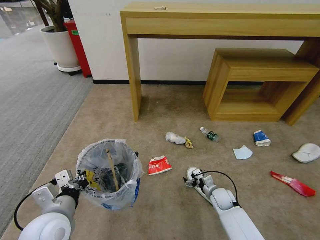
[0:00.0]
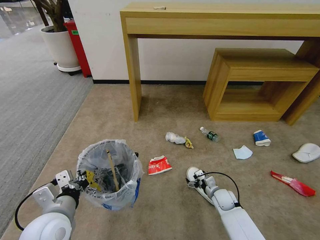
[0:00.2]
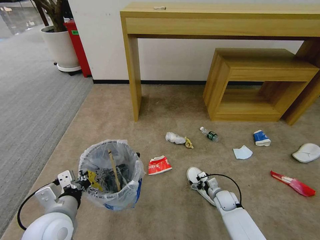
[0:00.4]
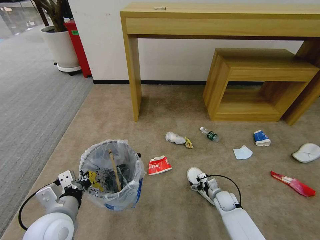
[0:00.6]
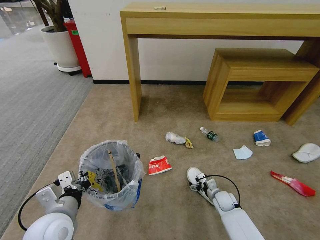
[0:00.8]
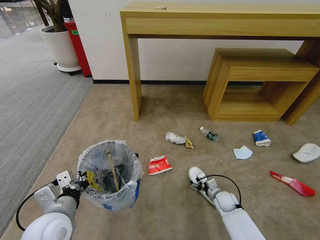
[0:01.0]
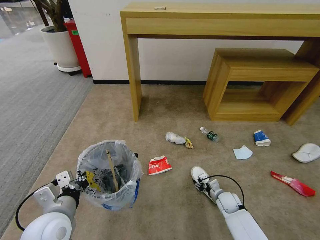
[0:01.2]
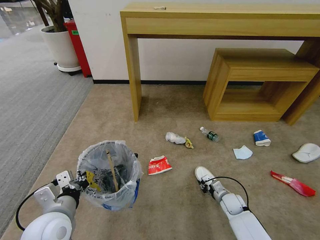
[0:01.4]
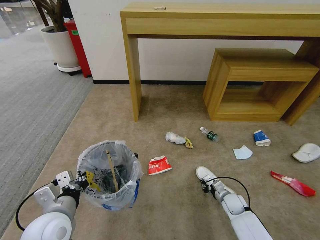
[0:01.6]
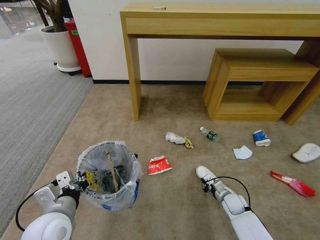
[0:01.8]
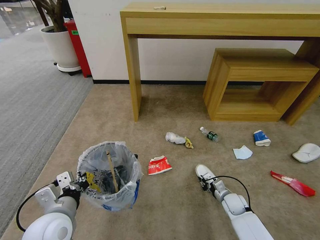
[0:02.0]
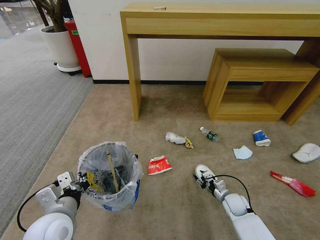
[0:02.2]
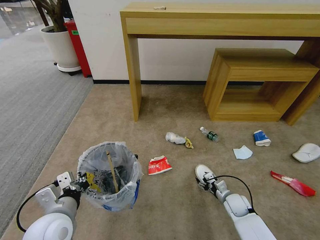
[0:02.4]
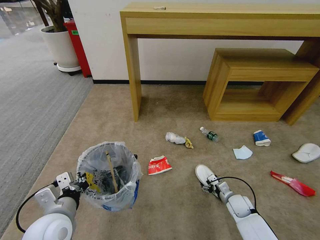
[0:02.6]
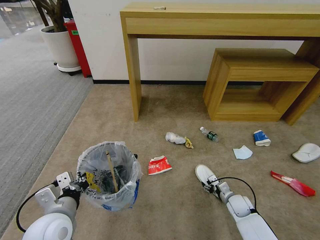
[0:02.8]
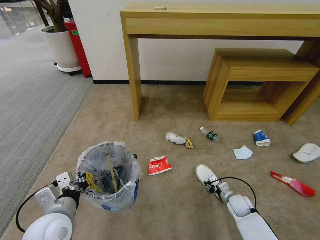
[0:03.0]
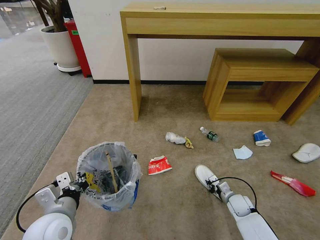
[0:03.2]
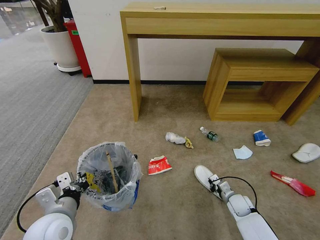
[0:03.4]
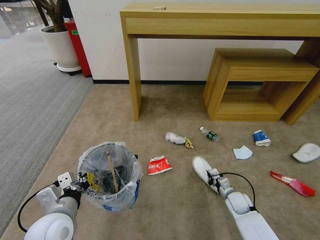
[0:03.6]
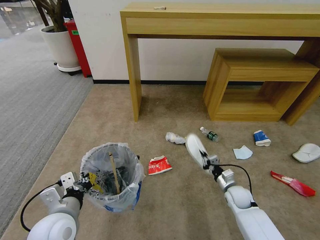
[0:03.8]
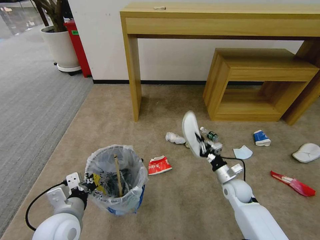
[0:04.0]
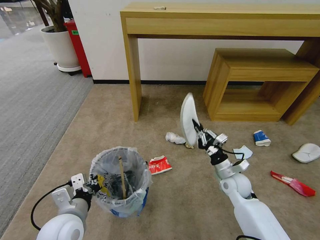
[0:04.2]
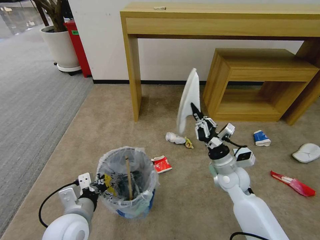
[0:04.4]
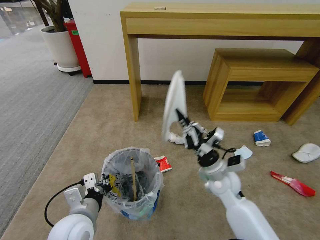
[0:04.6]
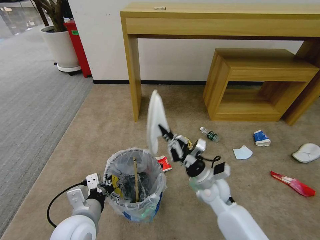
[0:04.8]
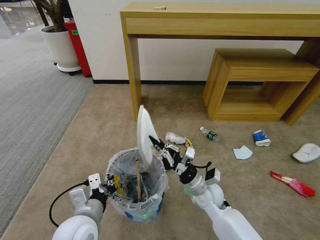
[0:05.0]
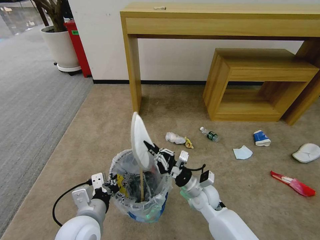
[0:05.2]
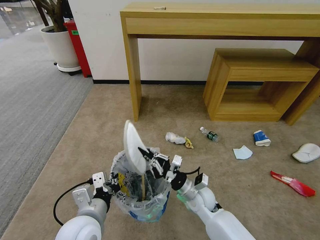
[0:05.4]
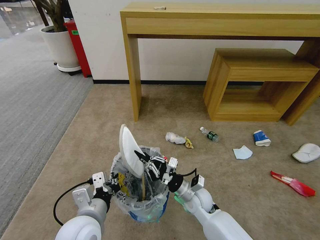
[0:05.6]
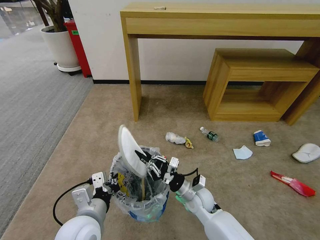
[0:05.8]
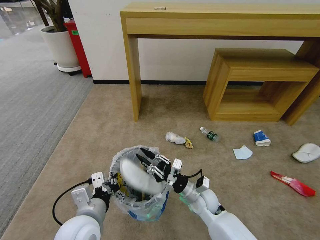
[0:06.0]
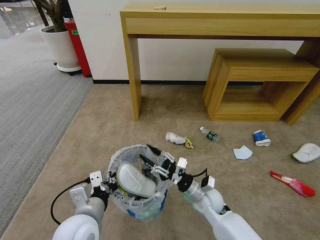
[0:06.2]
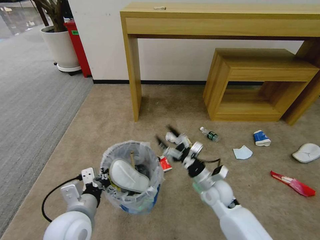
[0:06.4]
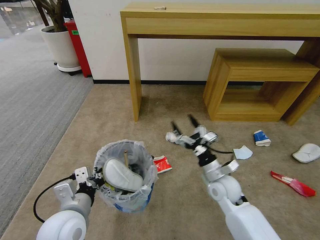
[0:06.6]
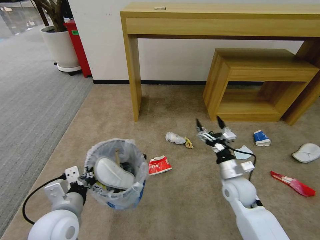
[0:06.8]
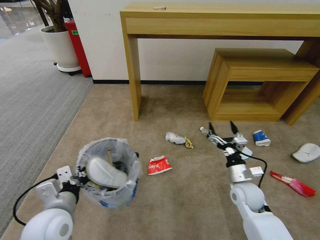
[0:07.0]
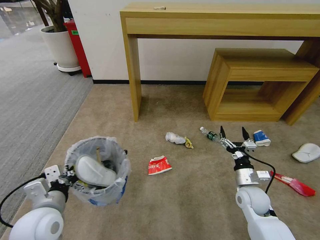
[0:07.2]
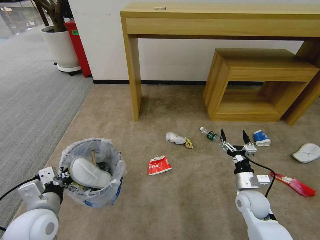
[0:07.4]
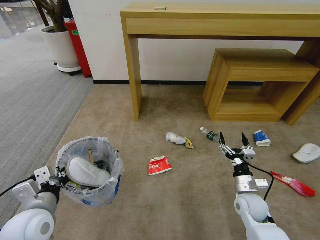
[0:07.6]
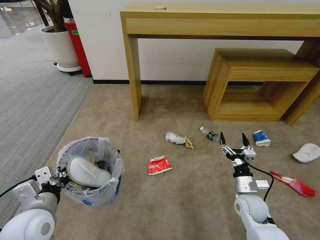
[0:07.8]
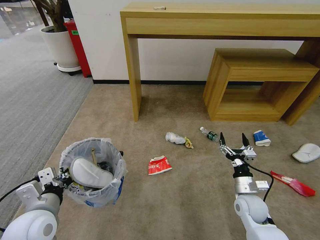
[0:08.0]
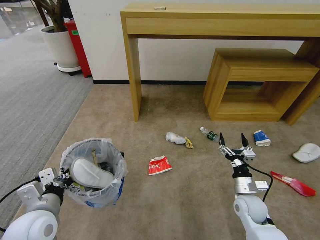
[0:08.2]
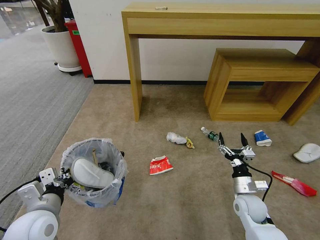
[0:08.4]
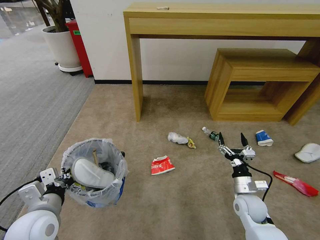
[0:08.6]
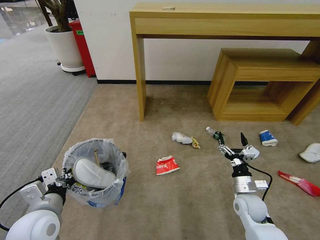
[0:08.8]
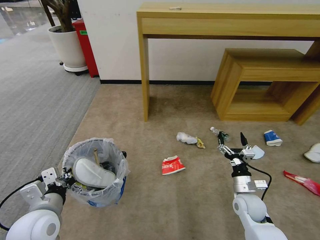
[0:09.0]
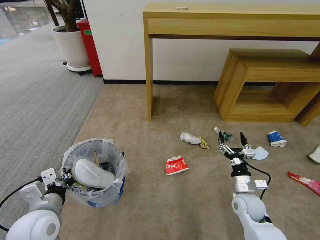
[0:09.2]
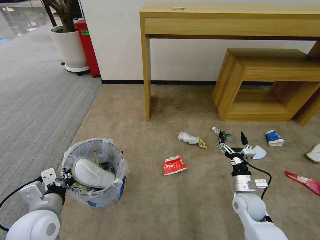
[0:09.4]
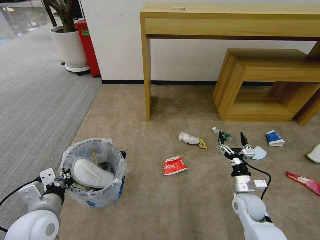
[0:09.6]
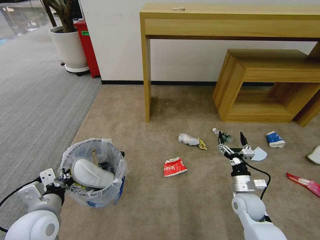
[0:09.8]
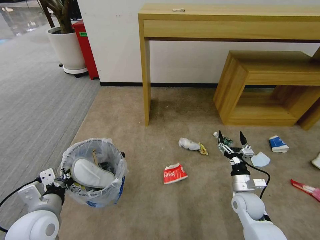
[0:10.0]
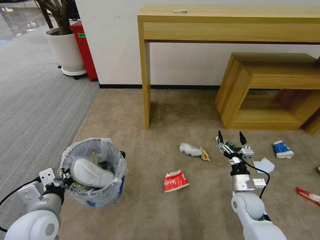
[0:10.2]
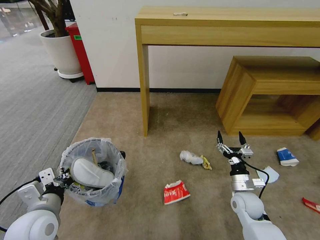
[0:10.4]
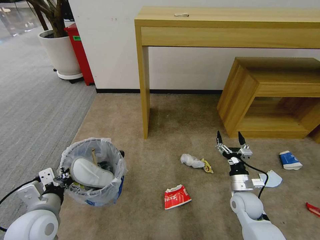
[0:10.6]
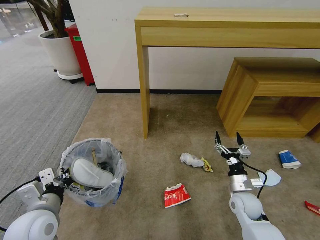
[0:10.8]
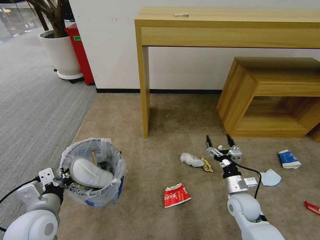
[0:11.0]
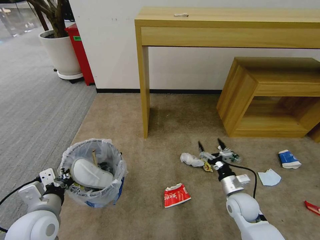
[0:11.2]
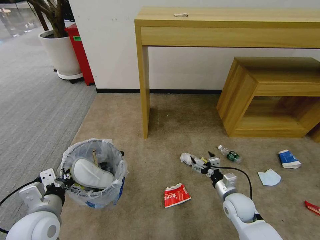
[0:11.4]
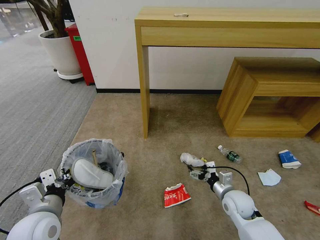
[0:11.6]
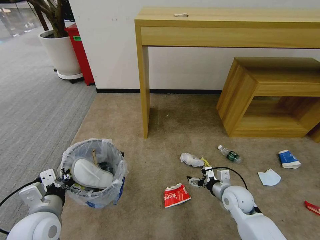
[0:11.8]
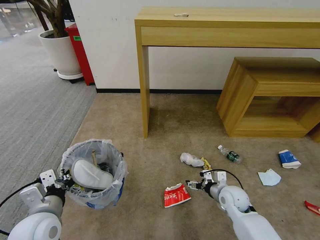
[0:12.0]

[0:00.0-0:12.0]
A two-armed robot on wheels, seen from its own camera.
Task of the whole recording: Pick up the trash bin and place the garbage on the floor into it.
0:00.0 to 0:01.6: The right gripper shifts some 5 cm to the right, and closes its fingers.
0:01.6 to 0:03.0: The right gripper opens, then closes once more.
0:03.0 to 0:04.4: The right gripper moves upward and to the left, some 25 cm, and closes up.
0:04.4 to 0:06.0: The right gripper heads to the left and downward, covering about 15 cm.
0:06.0 to 0:07.6: The left gripper is displaced to the left by about 10 cm; the right gripper moves to the right, roughly 15 cm, and opens up.
0:07.6 to 0:09.0: Neither gripper changes place.

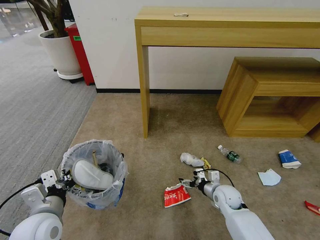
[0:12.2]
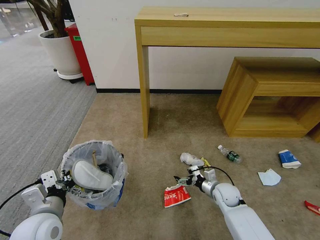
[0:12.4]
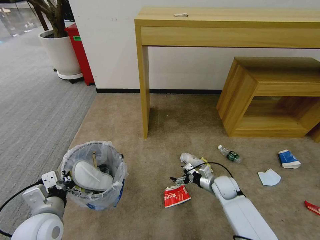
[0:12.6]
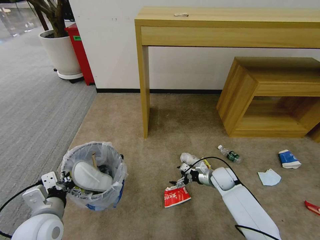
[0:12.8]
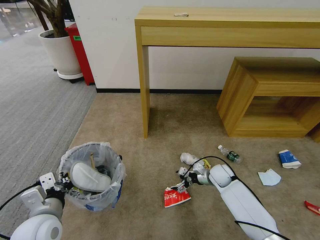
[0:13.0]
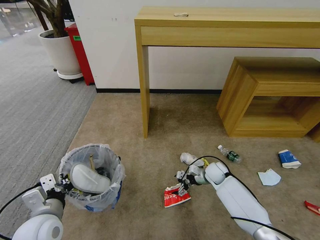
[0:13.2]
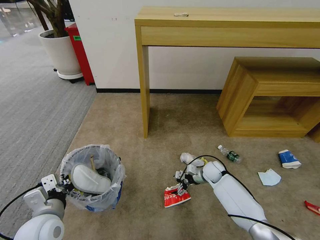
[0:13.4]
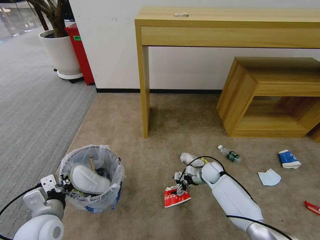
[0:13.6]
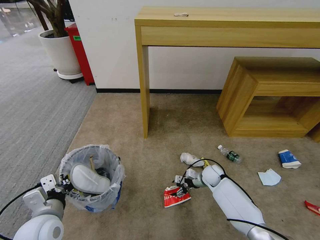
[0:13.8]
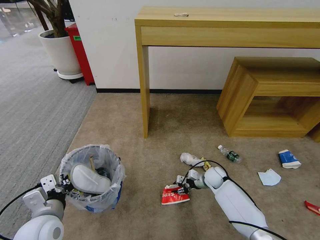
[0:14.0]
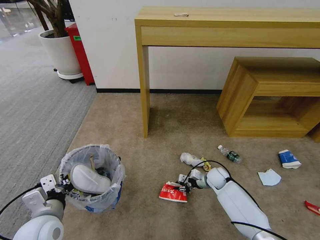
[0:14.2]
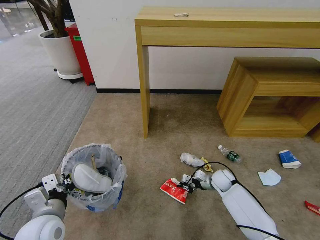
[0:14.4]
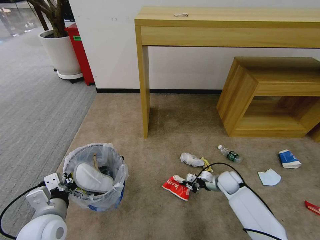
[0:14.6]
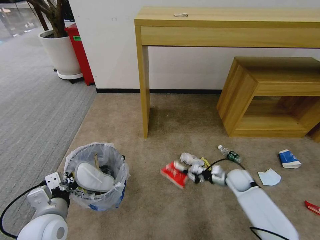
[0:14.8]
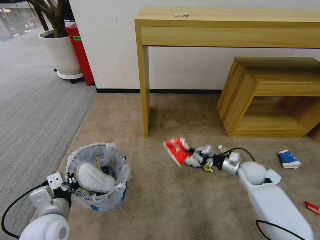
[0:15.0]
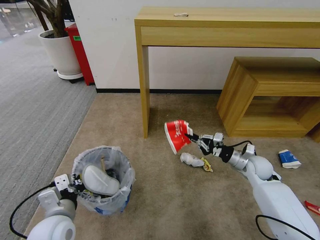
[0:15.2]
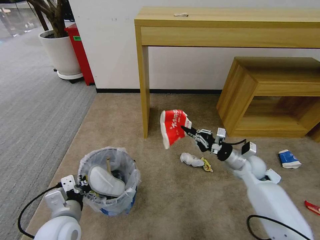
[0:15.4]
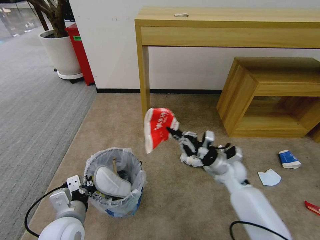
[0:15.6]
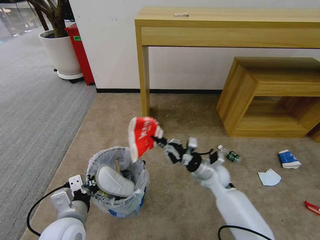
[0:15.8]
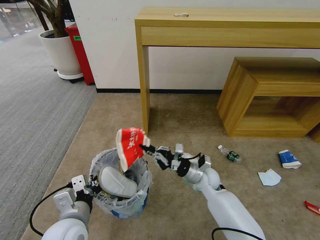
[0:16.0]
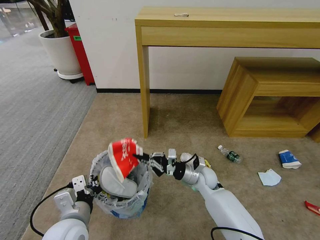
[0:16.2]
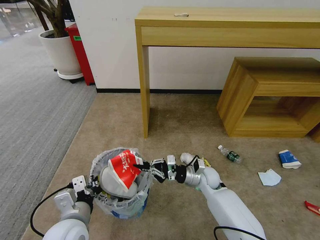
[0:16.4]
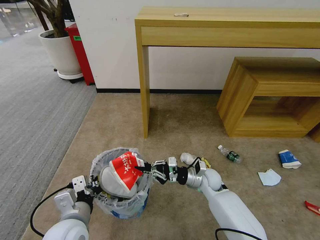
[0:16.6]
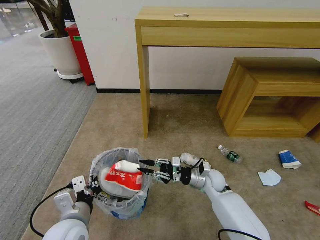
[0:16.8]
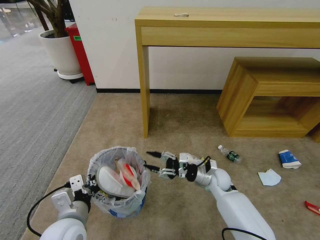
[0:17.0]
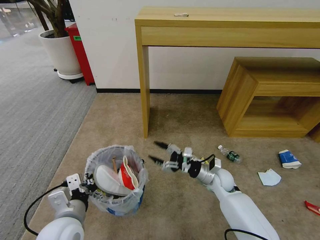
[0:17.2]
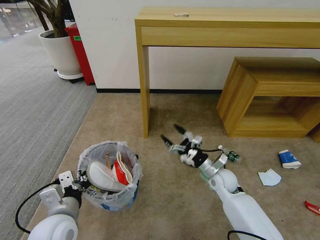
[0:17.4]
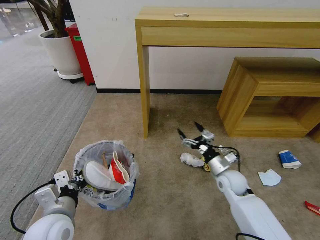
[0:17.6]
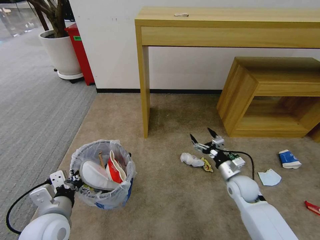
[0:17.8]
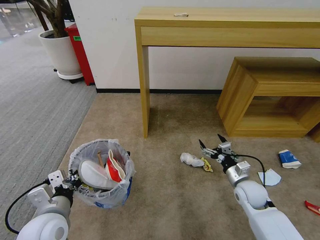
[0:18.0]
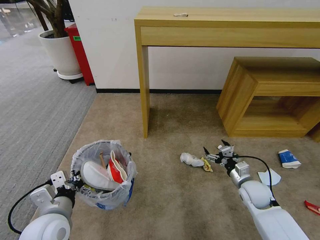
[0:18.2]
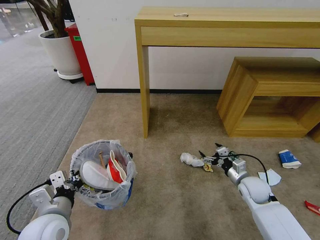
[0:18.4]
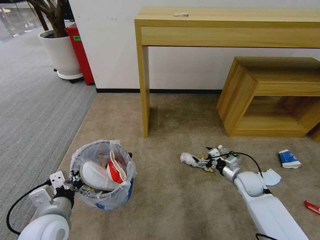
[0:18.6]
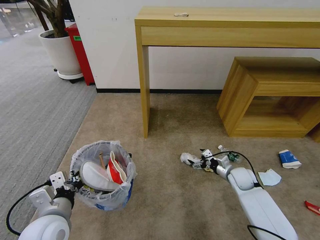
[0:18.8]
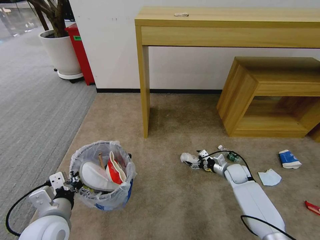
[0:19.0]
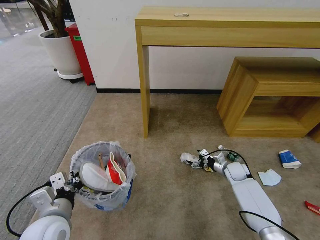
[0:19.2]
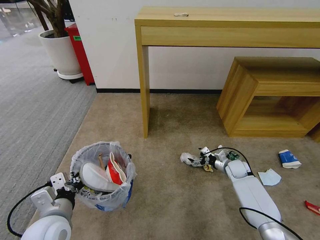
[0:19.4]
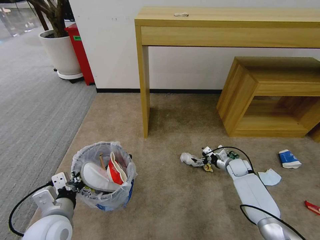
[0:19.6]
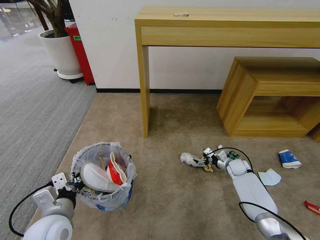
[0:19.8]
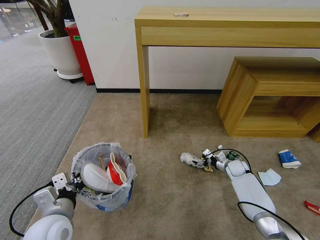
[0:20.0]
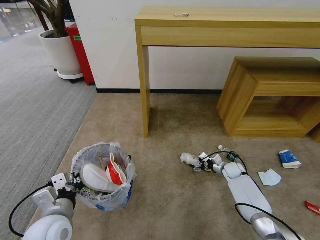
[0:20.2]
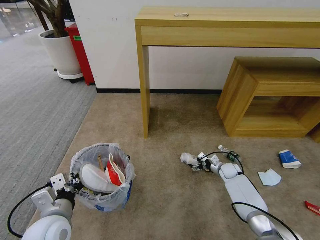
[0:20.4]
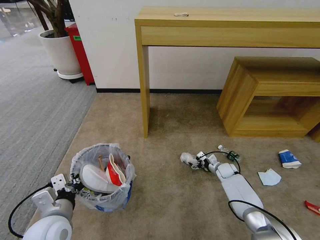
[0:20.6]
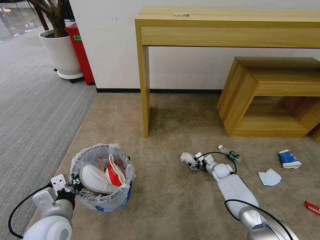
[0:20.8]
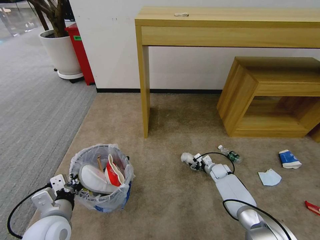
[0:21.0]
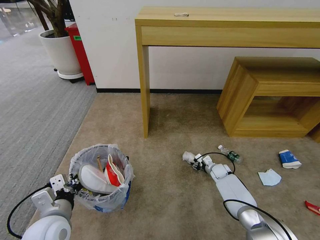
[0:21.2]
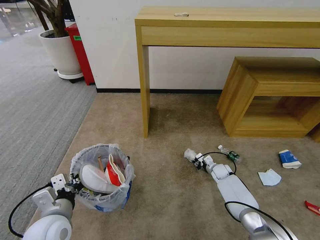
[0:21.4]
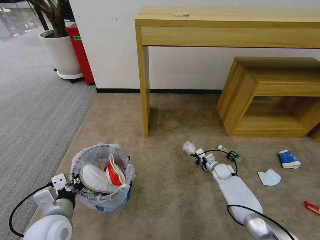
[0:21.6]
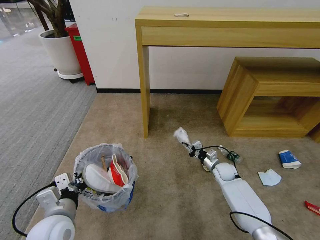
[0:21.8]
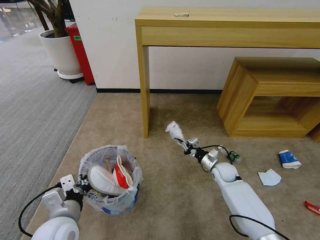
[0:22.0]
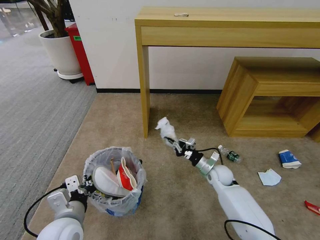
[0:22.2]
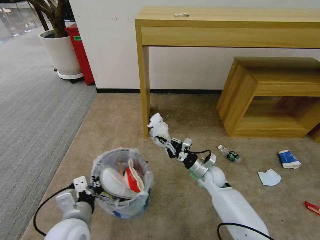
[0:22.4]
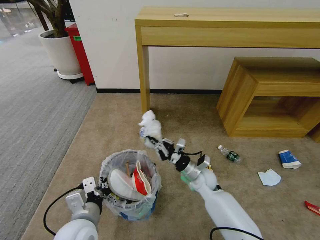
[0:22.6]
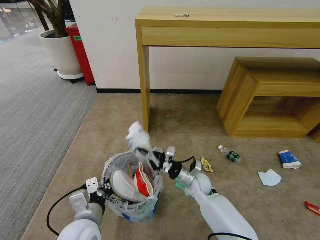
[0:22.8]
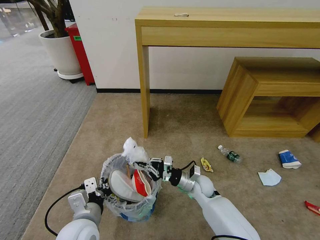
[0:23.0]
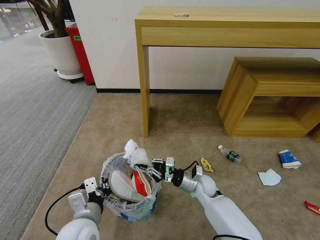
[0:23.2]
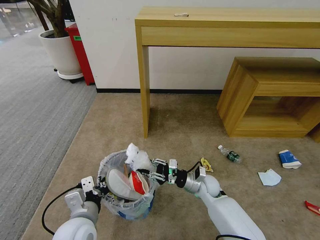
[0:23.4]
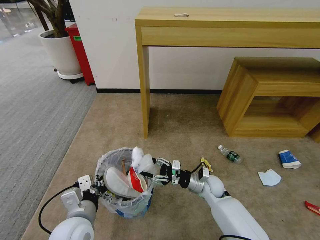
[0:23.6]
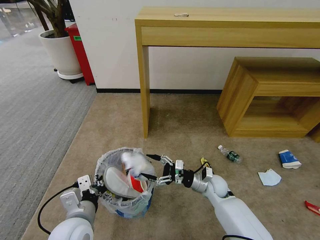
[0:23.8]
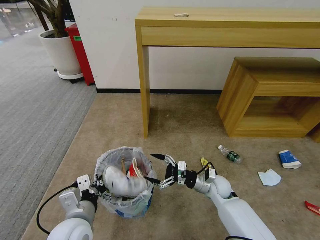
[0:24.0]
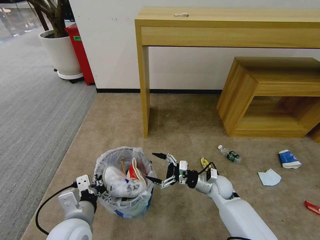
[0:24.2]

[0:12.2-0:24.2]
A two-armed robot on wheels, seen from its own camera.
Task of the whole recording: Pick up the trash bin and place the garbage on the floor into it.
0:12.2 to 0:13.8: The right gripper shifts some 10 cm forward.
0:13.8 to 0:15.2: The right gripper is displaced upward and to the right by some 20 cm, and closes its fingers.
0:15.2 to 0:16.6: The right gripper is displaced to the left by approximately 15 cm.
0:16.6 to 0:18.2: The right gripper shifts about 15 cm to the right and backward, and opens up.
0:18.2 to 0:19.8: The right gripper shifts roughly 15 cm forward and downward.
0:19.8 to 0:21.2: The right gripper travels to the left and downward by roughly 10 cm, and closes up.
0:21.2 to 0:22.6: The right gripper travels to the left, upward and backward by about 25 cm, and closes up. The left gripper heads to the right, covering approximately 5 cm.
0:22.6 to 0:24.2: The right gripper shifts some 5 cm to the right, and opens its fingers.
